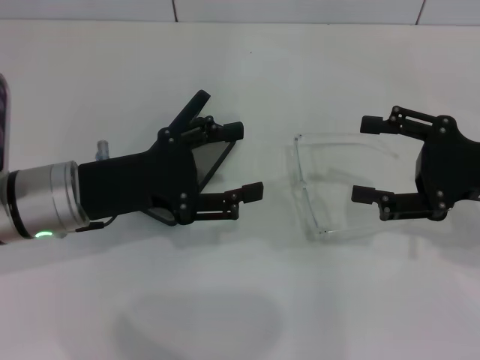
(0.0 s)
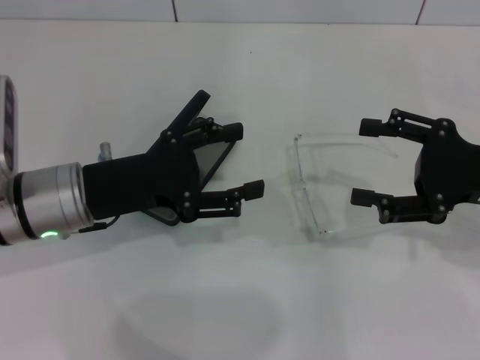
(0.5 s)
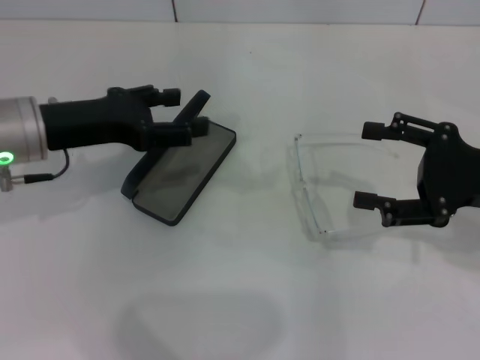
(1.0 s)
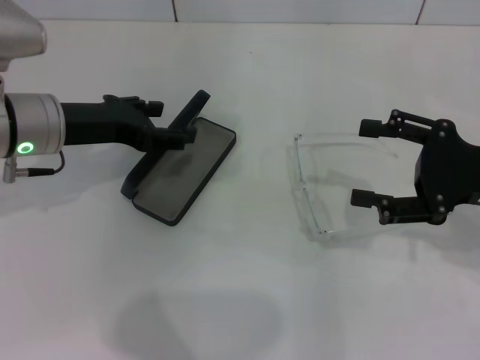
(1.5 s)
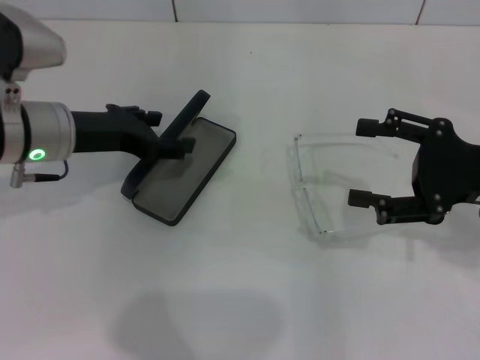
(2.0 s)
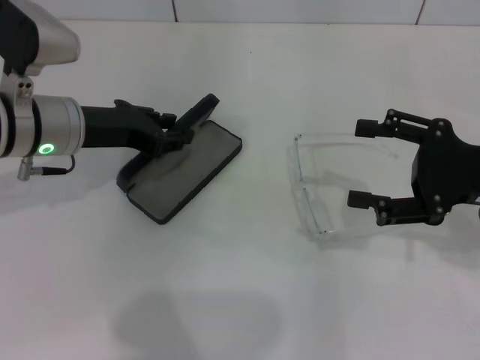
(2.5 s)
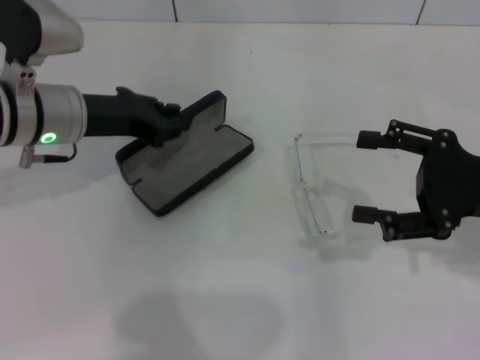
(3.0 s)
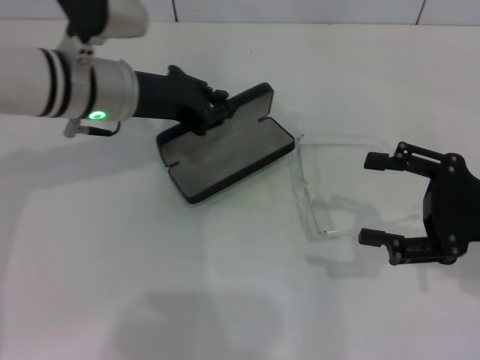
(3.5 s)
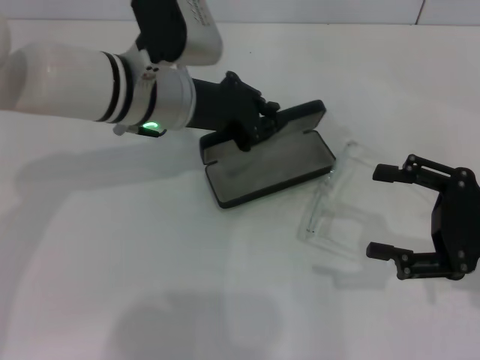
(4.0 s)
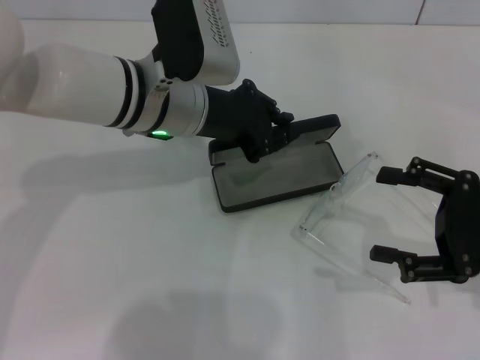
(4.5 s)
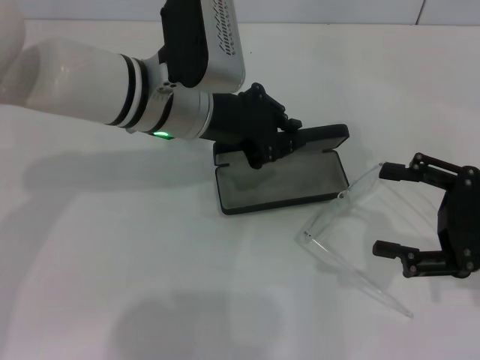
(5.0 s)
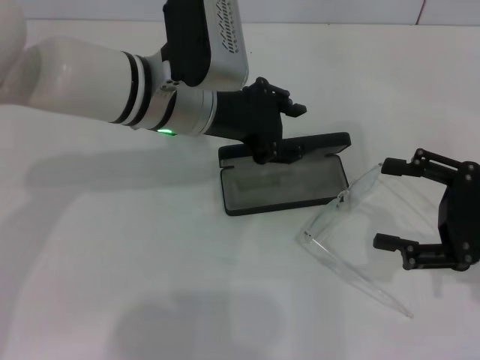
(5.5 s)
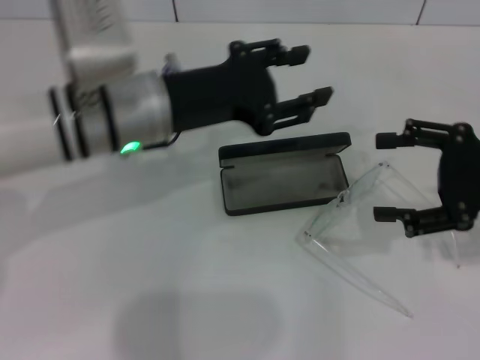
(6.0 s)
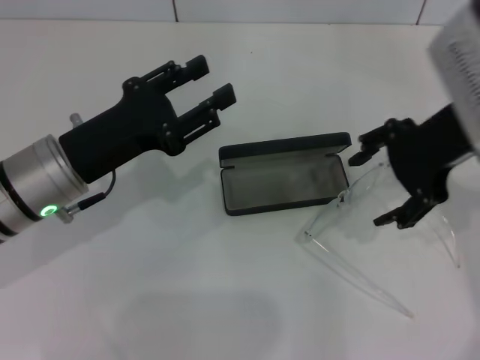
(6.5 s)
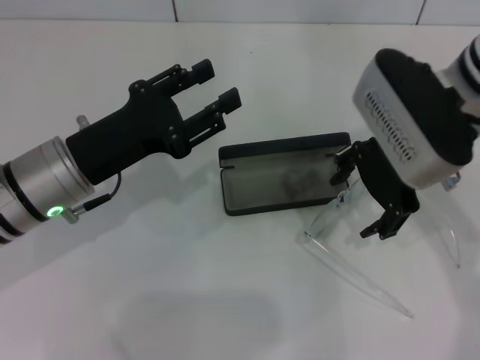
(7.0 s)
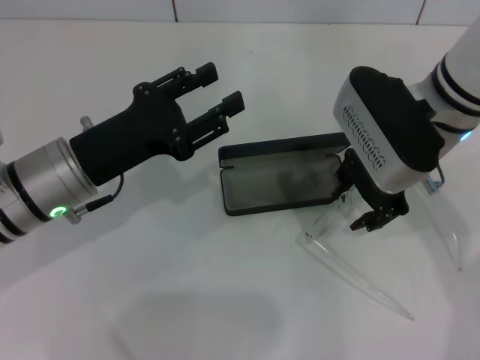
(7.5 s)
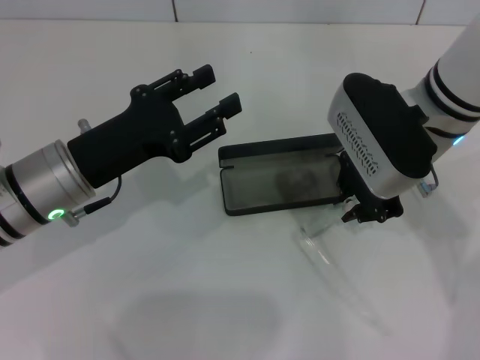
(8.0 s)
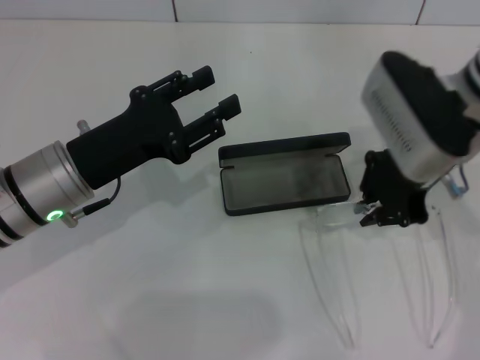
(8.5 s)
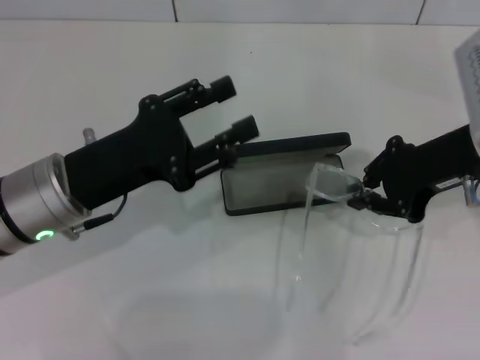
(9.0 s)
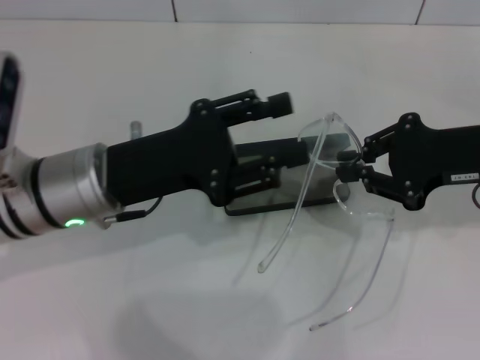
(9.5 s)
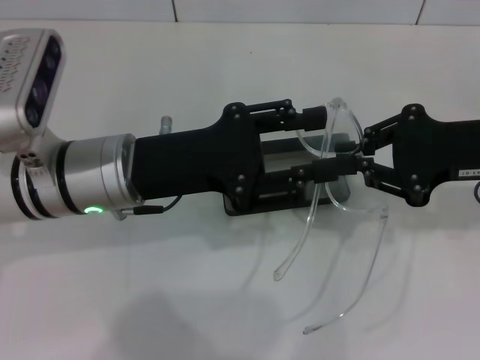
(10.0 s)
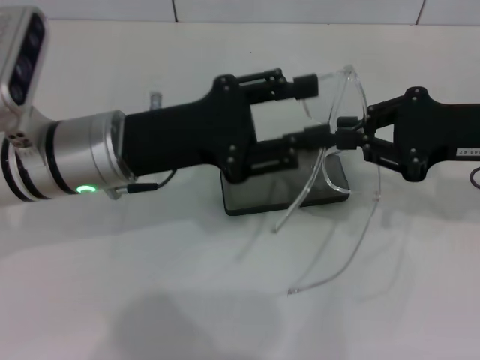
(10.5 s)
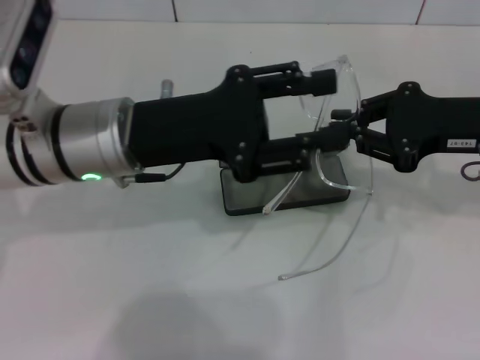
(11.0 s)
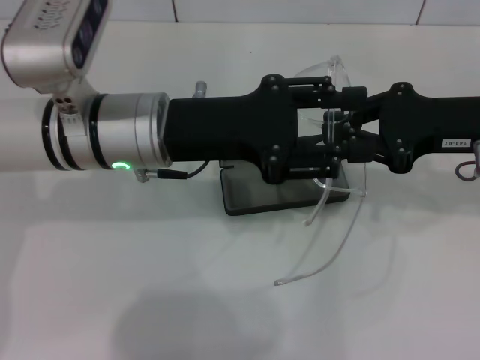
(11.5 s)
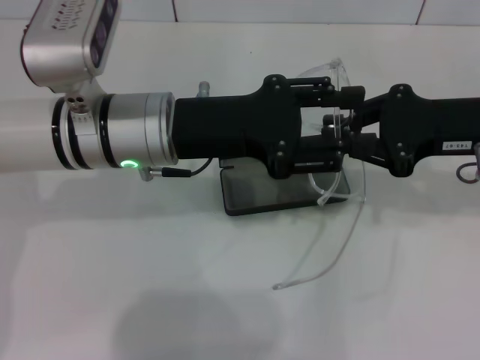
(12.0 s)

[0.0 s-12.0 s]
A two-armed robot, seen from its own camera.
Step, 0.0 to 2.5 s: Grab the glasses case with your left hand.
Step, 3.0 to 5.0 s: Place the glasses case in the center of the table with your left hand.
Step, 5.5 to 8.0 s: Grab the eyeglass frame with your right hand.
0.0 to 2.0 s: The left gripper is displaced forward by about 5 cm.
2.0 to 4.0 s: The left gripper goes roughly 10 cm to the right, and closes up.
4.0 to 6.0 s: The right gripper is displaced upward by some 5 cm, while the left gripper changes place by some 5 cm, and opens.
6.0 to 8.0 s: The left gripper heads to the left and downward, covering about 10 cm. The right gripper travels to the left and forward by roughly 15 cm, and closes its fingers.
8.0 to 10.0 s: The right gripper is displaced to the right and backward by approximately 15 cm. Meanwhile the left gripper heads to the right, covering about 5 cm.

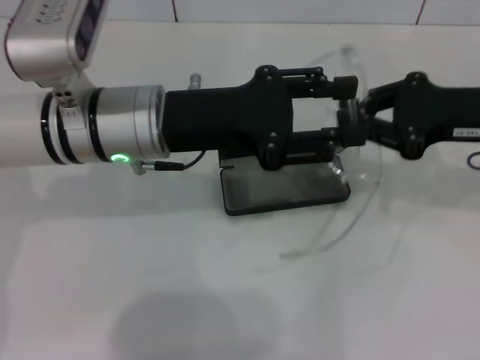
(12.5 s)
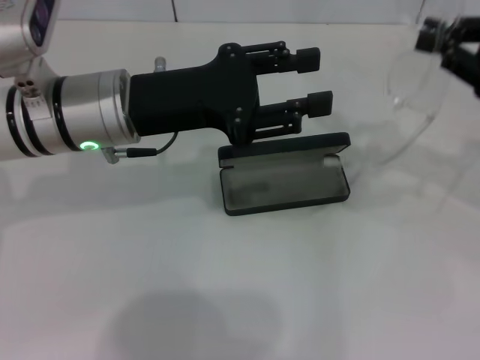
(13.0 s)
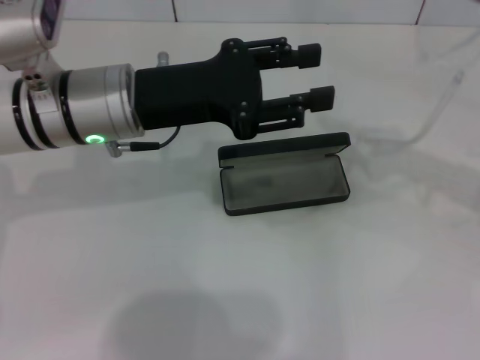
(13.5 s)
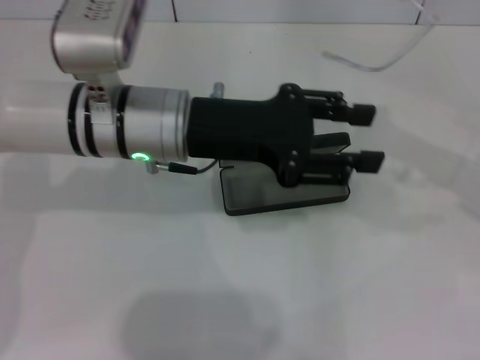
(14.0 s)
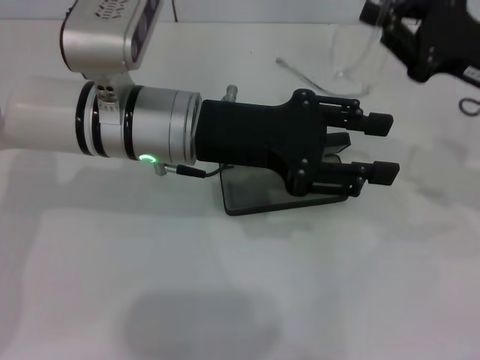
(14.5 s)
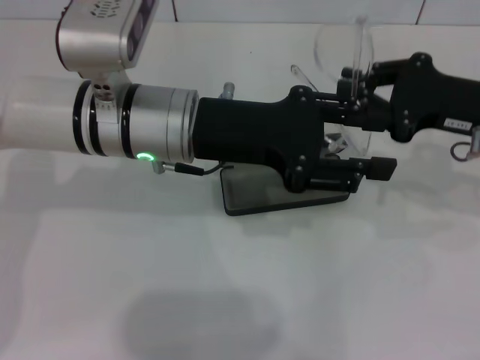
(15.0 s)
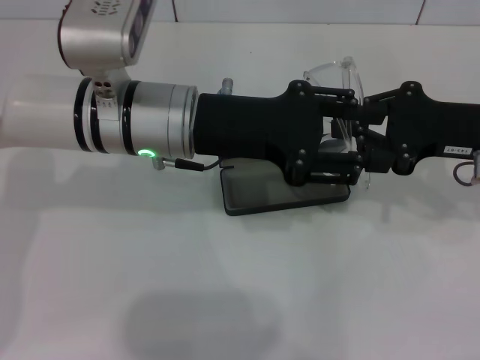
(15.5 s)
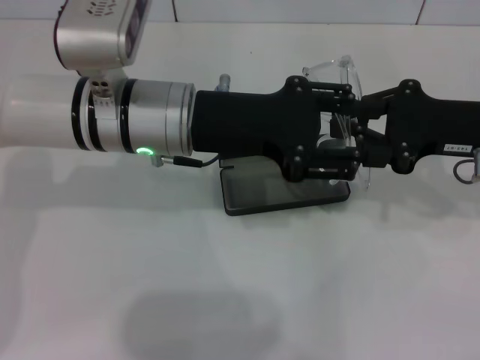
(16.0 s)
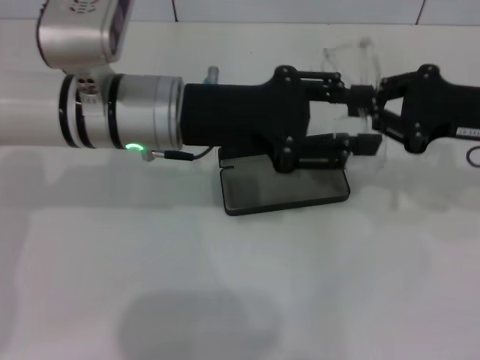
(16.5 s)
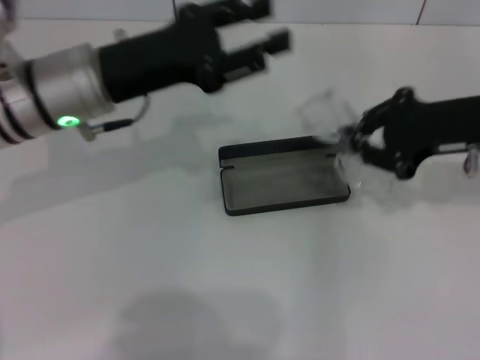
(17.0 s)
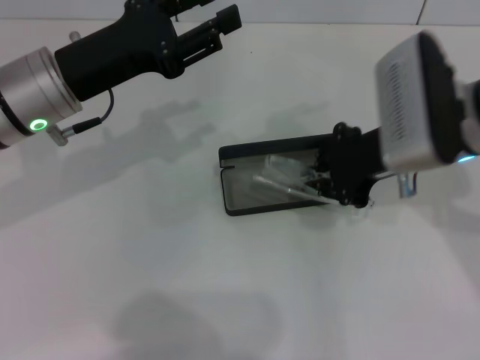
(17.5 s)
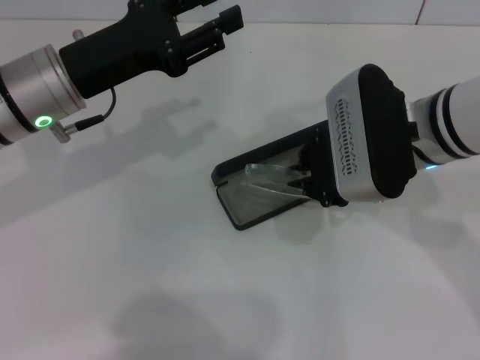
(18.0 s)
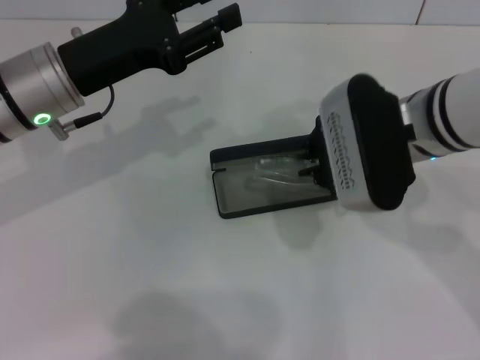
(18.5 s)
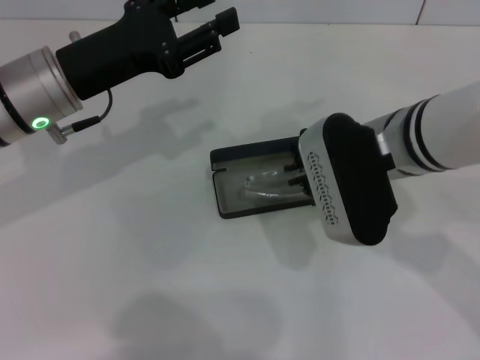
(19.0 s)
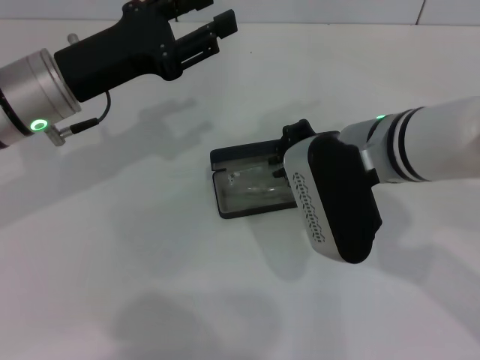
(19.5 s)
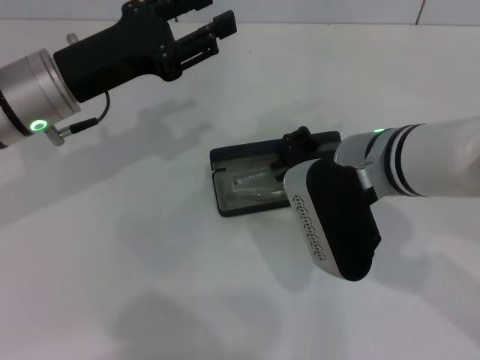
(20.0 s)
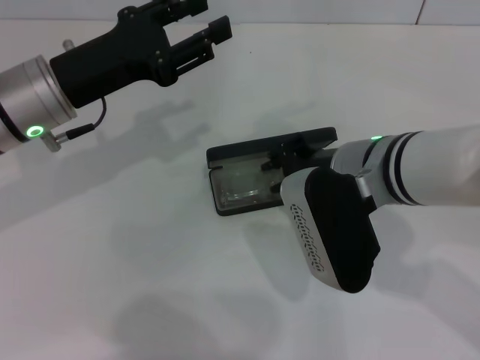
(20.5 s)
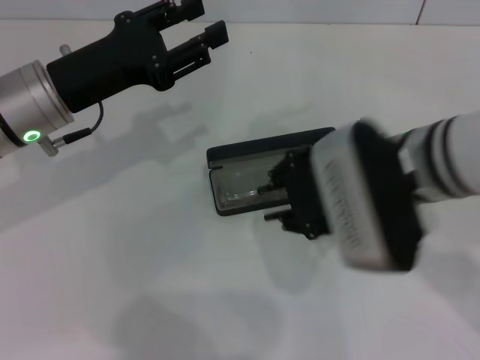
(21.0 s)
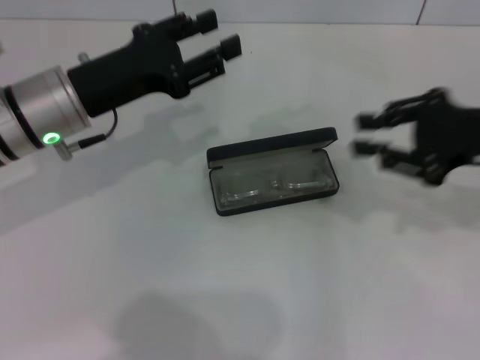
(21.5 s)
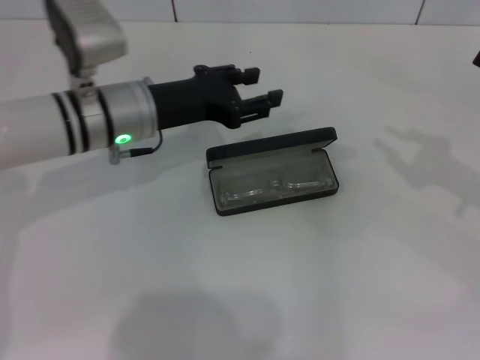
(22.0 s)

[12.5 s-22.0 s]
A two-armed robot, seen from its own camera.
Step, 12.5 to 16.0 s: Lift the glasses with your right hand.
Step, 16.5 to 20.5 s: Put the glasses into the case with your right hand.
16.5 to 18.0 s: The right gripper goes about 15 cm to the left. Meanwhile the left gripper goes approximately 10 cm to the left.
20.0 to 22.0 s: The right gripper goes some 25 cm to the right; the left gripper heads to the right, covering roughly 5 cm.

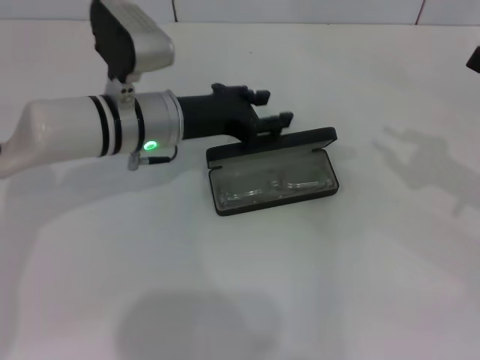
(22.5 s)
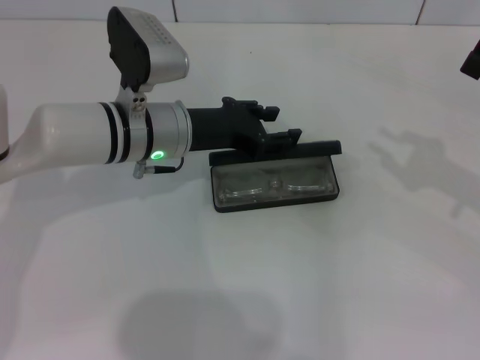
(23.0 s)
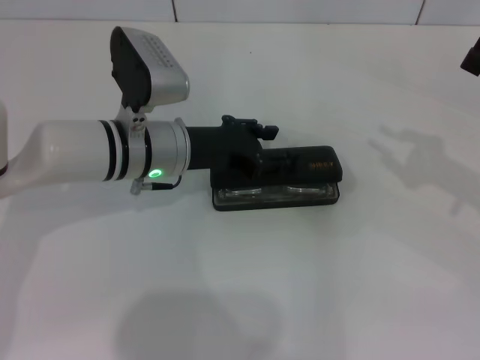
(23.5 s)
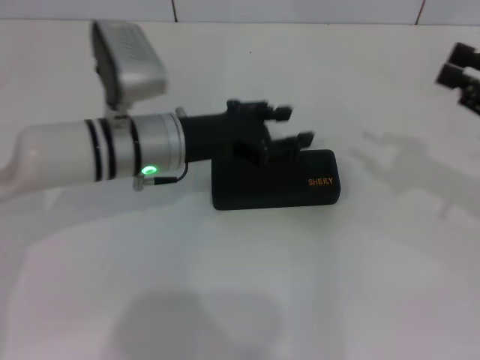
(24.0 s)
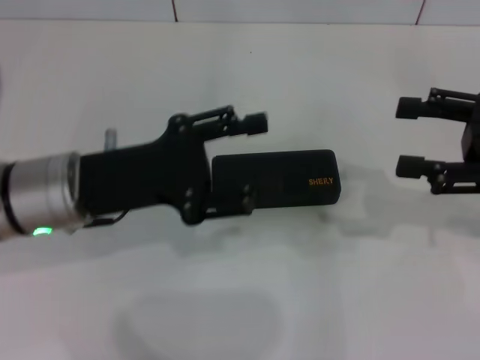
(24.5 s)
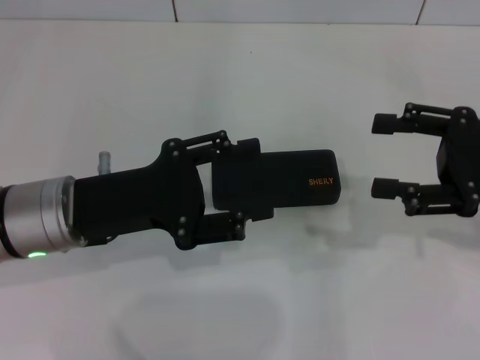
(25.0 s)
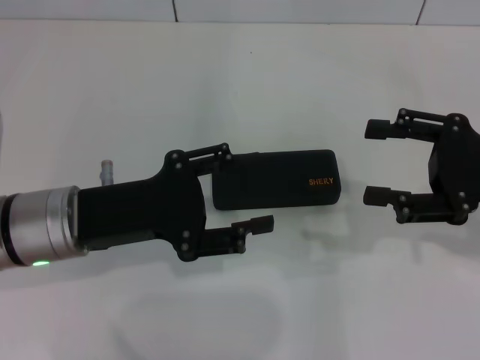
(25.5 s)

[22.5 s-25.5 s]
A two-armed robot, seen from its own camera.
22.5 to 24.0 s: The grippers stay close to where they were, moving slightly.
24.0 to 25.5 s: The right gripper opens up. Meanwhile the left gripper is displaced backward and to the left by about 10 cm.
